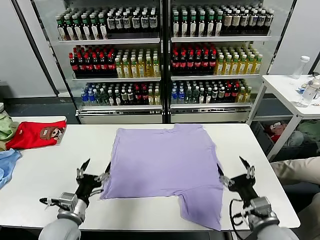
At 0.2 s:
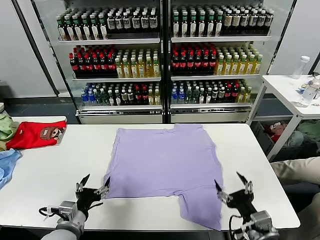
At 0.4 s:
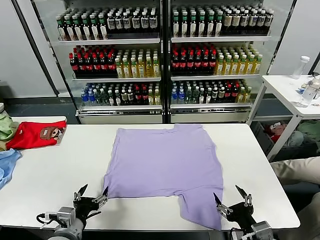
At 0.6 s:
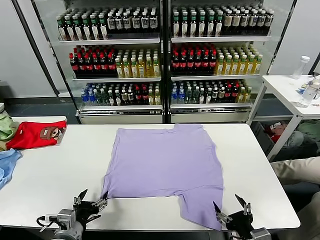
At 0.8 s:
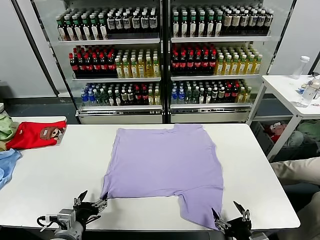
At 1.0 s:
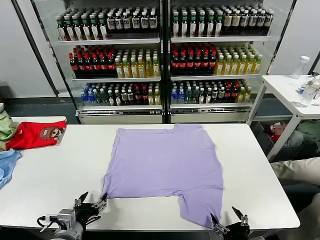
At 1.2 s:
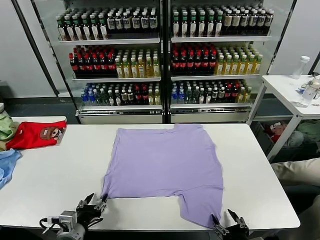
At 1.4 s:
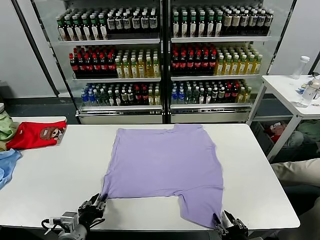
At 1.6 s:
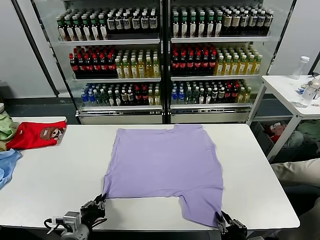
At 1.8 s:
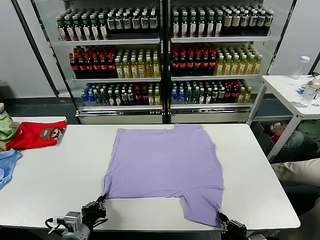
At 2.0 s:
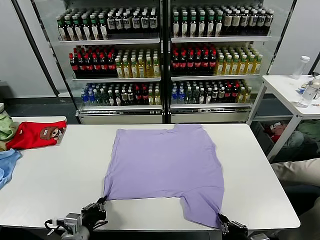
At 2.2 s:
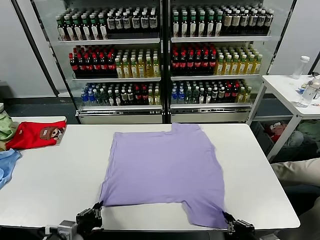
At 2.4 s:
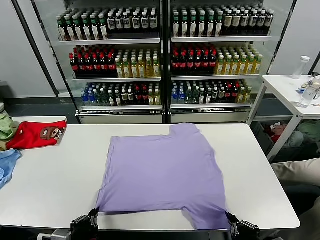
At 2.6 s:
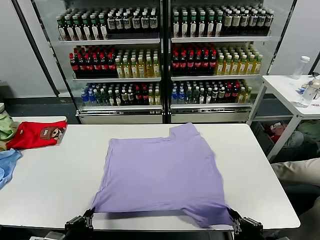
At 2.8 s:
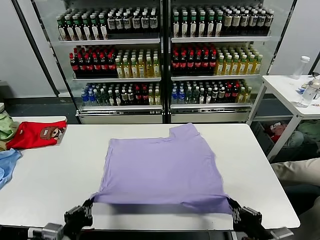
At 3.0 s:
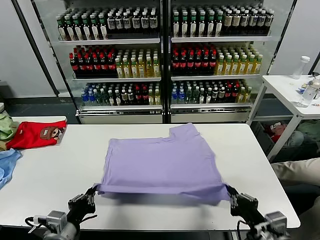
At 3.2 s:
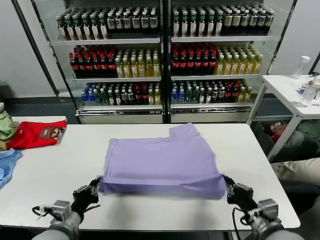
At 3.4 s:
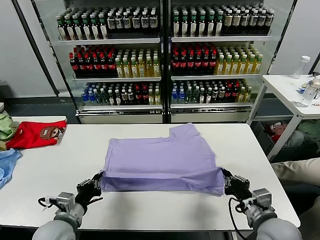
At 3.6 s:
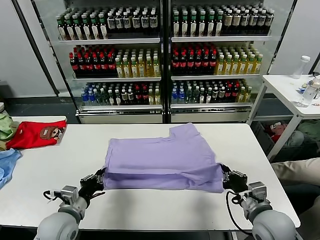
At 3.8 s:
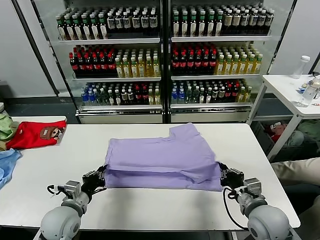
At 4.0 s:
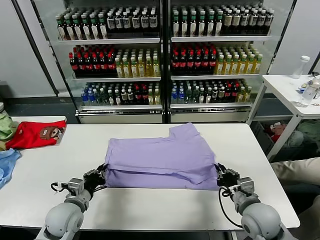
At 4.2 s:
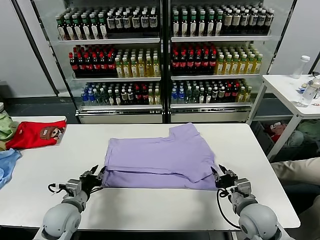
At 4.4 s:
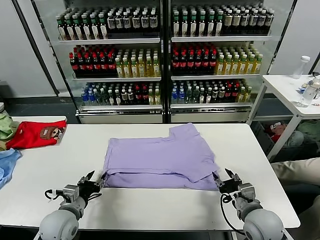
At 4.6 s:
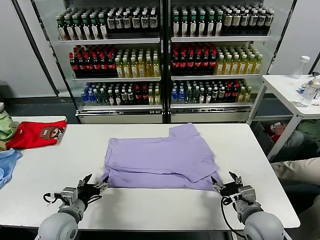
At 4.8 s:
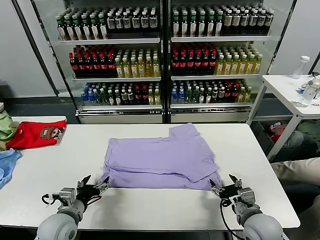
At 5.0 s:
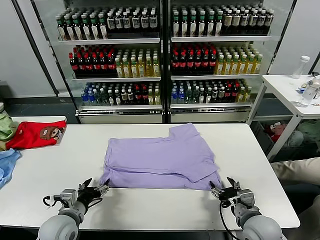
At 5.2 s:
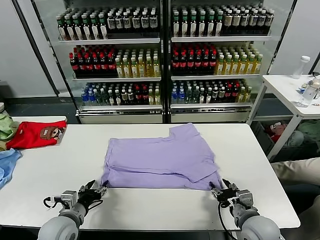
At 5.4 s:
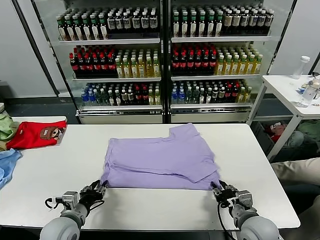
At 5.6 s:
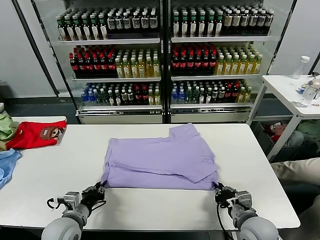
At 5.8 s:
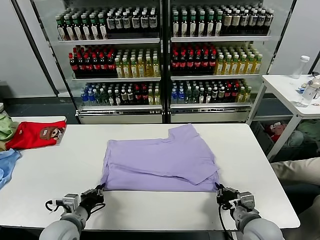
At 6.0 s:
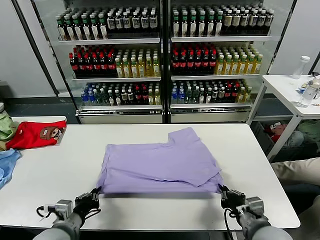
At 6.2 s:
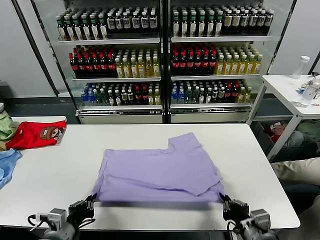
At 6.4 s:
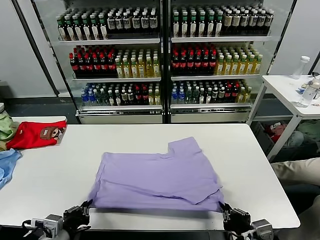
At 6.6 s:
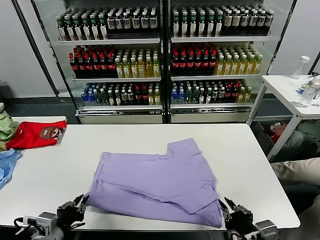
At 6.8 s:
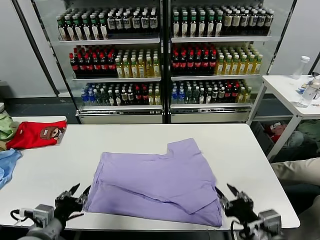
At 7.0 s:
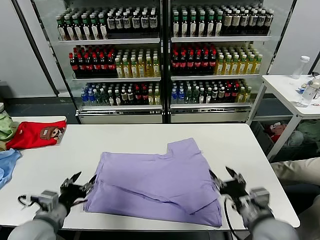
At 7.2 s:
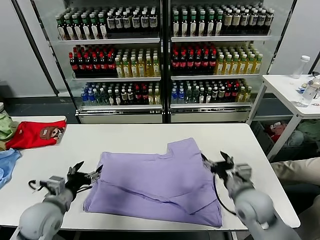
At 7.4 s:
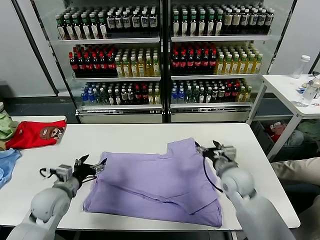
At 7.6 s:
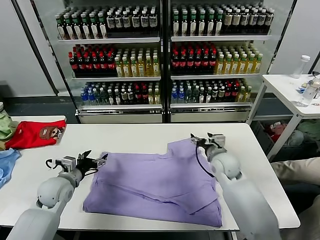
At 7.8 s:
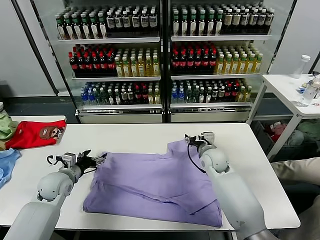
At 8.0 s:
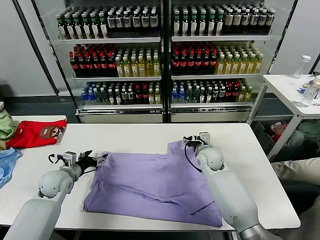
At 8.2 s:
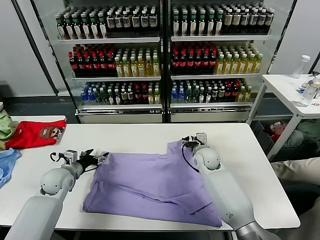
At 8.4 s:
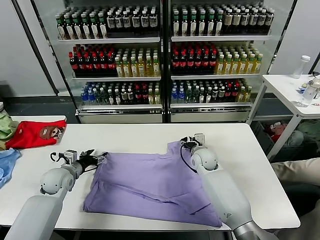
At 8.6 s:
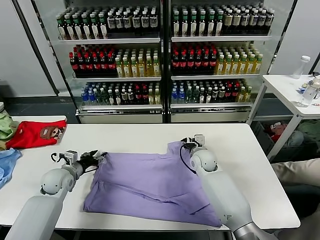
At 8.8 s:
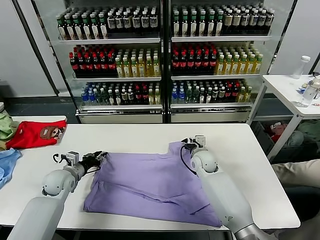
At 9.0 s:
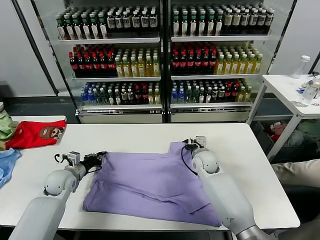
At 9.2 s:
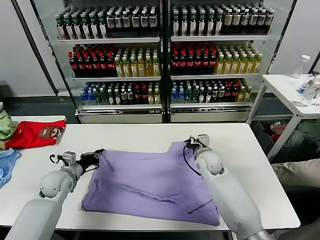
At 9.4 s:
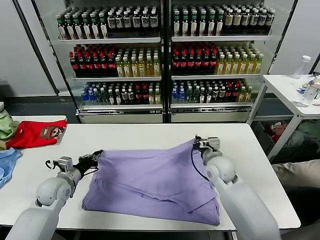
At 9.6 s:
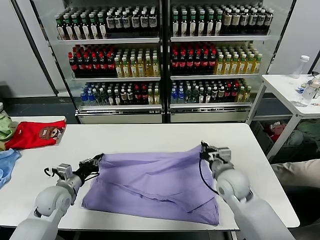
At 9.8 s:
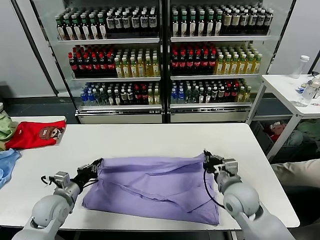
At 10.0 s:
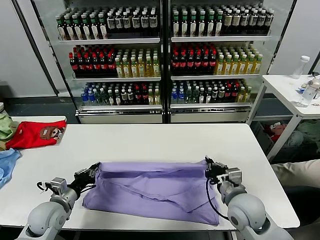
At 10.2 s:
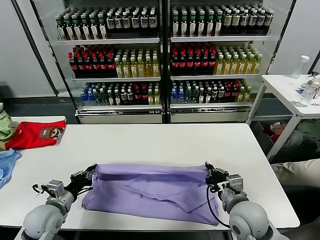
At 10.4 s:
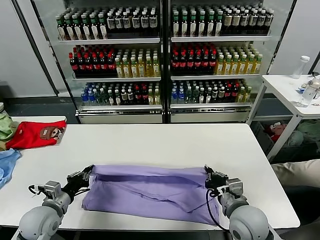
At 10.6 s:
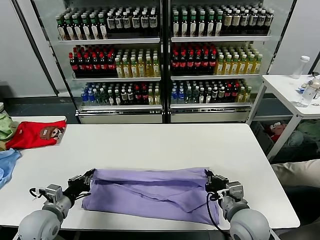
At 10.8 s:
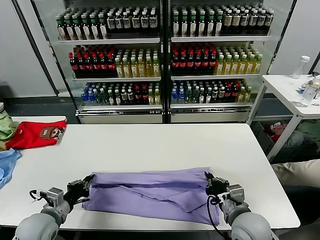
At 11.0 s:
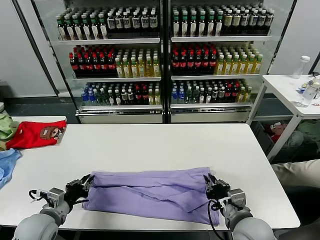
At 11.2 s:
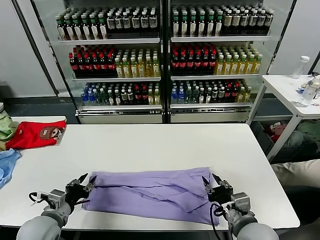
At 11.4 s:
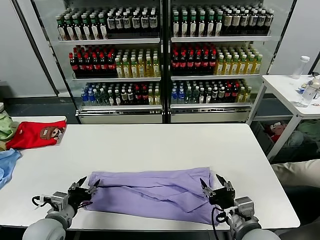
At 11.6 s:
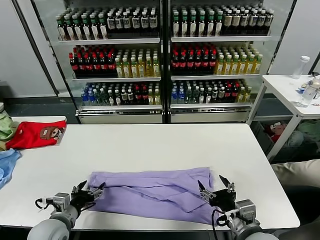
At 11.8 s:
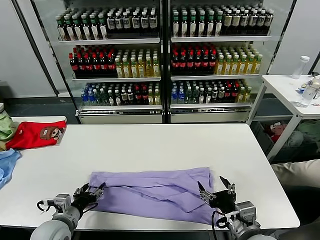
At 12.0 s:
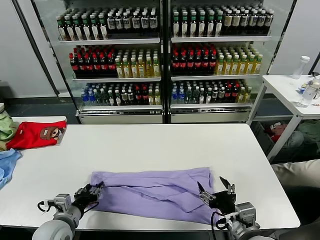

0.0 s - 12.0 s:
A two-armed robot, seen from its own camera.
Task of the whole recording: fold and organize the clothes.
Step, 0.0 s - 1.6 s: use both grippers simultaneously to clamp the lower edge of the clothing fabric.
Step, 2.0 s - 4.4 s: use both grippers to drag the lower edge of the fabric forward and fold it over the upper edge.
Step, 4.8 s - 6.8 s: Drag the clothes downward with both gripper.
Step, 7.0 s - 9.0 s: use both grippers simultaneously to clamp the upper edge of the clothing fabric.
Step, 9.2 s - 11.4 s: use both grippers to drag the upper edge of the fabric backward and fold it over the lower edge.
1.6 s - 3.0 s: The right gripper shifts roughly 10 cm upward and forward. The left gripper travels upward by about 5 cm.
3.0 s - 4.4 s: Both grippers move forward and downward, about 10 cm. The left gripper opens up, while the right gripper opens its fingers.
4.4 s - 6.0 s: The two grippers go about 5 cm backward. The right gripper closes, while the left gripper closes.
6.0 s - 7.6 s: The right gripper travels forward by some 30 cm, and opens its fingers, while the left gripper is displaced forward by approximately 15 cm, and opens its fingers.
7.6 s - 9.0 s: The left gripper travels forward by some 5 cm, and closes; the right gripper moves about 5 cm, and closes.
9.0 s - 10.4 s: The right gripper travels backward by some 25 cm; the left gripper moves backward, some 15 cm.
10.4 s - 12.0 s: The left gripper ends up about 5 cm from where it was, and opens up. The right gripper shifts some 10 cm backward, and opens up.

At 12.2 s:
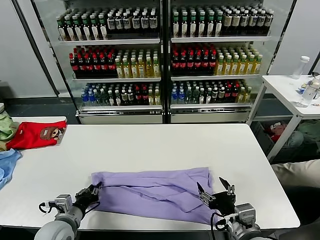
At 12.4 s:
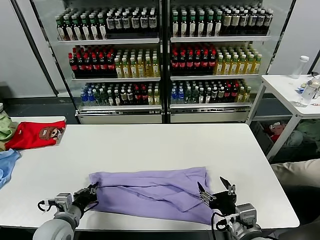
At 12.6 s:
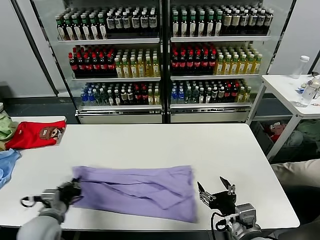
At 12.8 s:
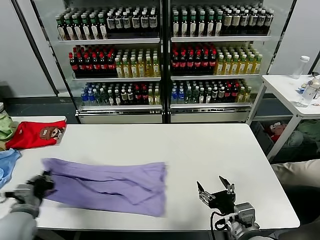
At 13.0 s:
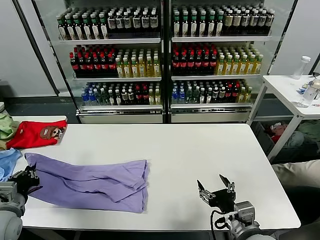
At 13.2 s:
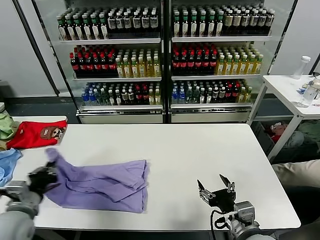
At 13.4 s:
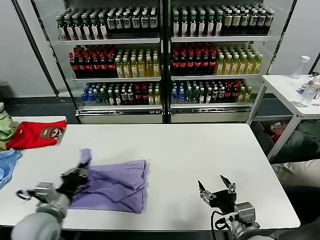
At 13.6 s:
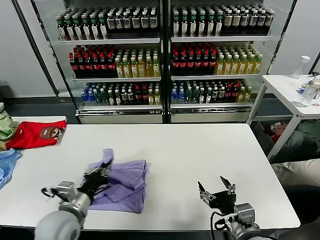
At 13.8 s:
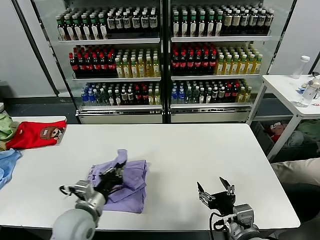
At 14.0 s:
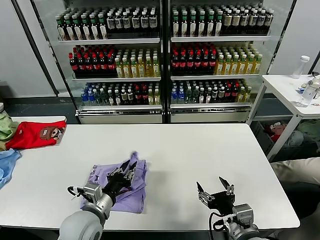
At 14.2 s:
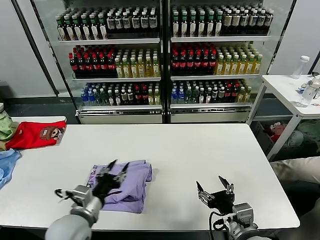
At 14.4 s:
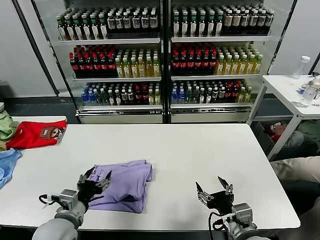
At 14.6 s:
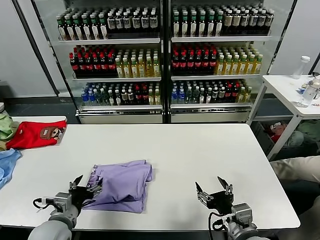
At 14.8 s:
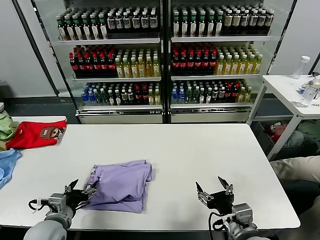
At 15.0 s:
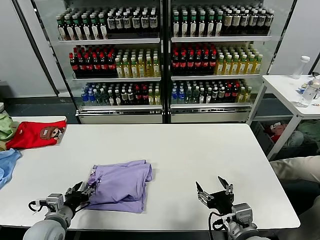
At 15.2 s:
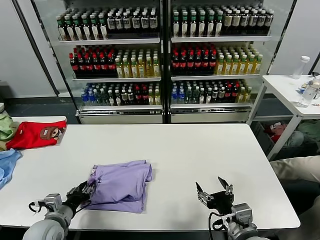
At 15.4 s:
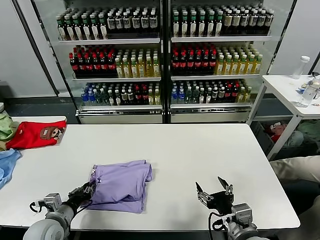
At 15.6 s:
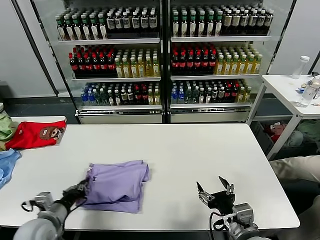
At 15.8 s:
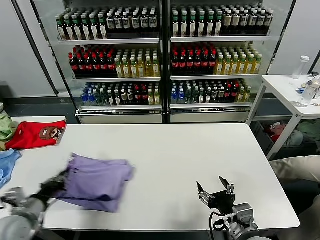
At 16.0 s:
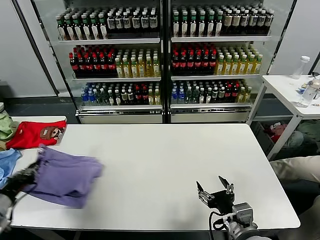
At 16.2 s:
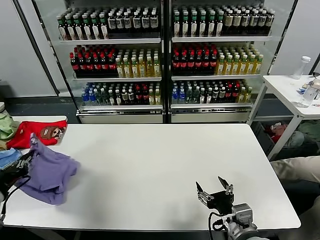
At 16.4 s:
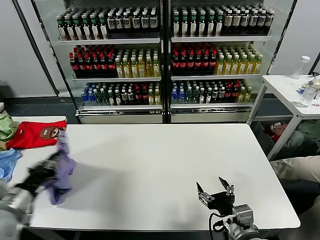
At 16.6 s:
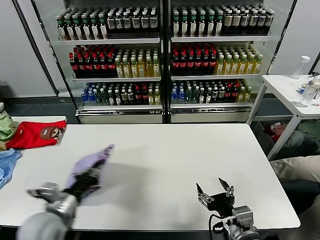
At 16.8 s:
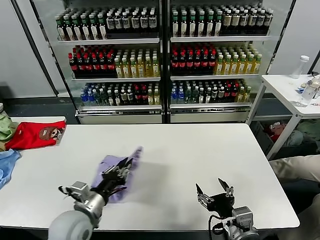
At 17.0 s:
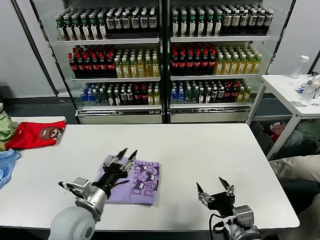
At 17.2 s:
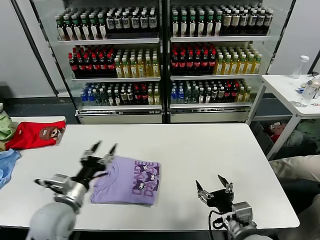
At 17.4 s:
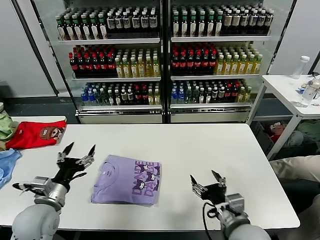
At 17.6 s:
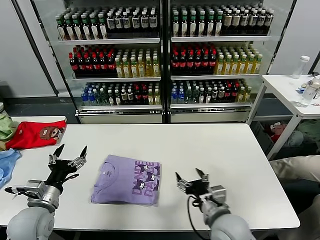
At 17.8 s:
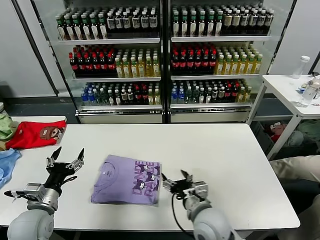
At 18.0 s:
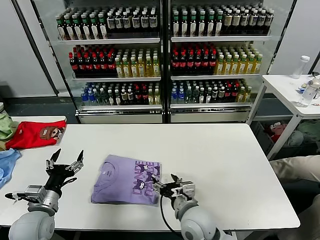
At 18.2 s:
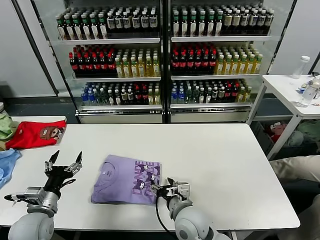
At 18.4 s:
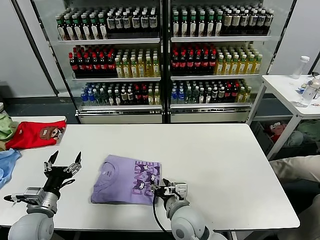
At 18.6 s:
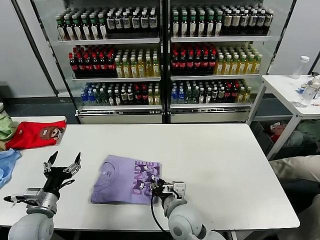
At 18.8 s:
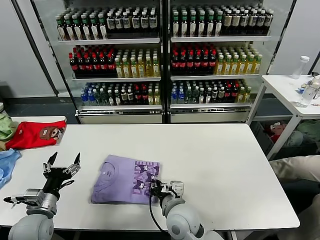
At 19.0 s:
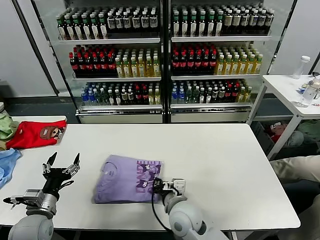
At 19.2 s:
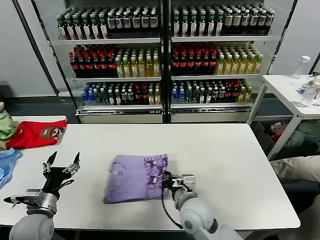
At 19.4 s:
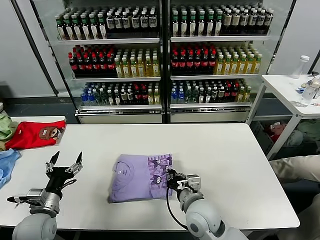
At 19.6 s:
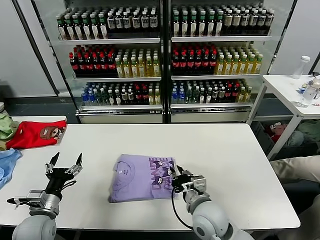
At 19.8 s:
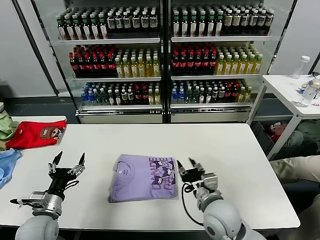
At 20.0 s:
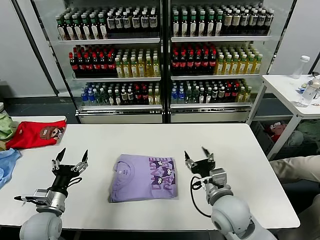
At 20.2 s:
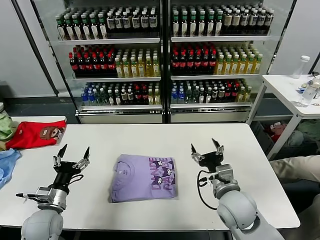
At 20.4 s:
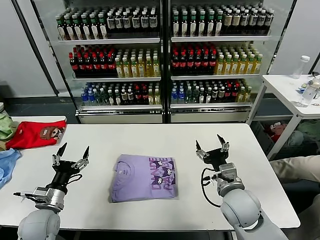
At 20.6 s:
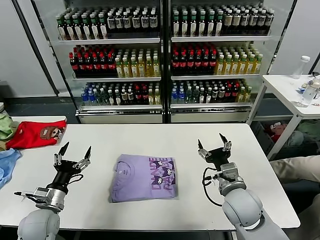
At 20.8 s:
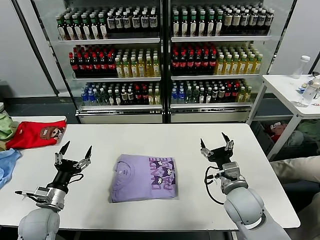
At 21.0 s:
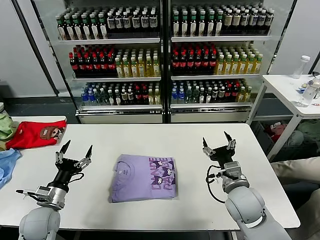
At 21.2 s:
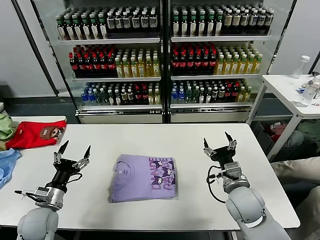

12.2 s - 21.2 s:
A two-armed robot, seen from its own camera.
Task of the whole recording: fold and organize the clothes.
Step, 12.6 s - 14.2 s: use the left gripper to drag the left edge of the fabric to the left and folds it over the right edge.
Step, 14.4 s - 17.0 s: Flip the folded clothes over with left gripper.
Step, 17.2 s - 19.8 s: Drag the clothes to the center of the table.
12.2 s - 13.8 s: The left gripper moves to the right and upward, approximately 10 cm.
13.8 s - 15.2 s: The left gripper heads to the left and downward, covering approximately 15 cm, and opens its fingers.
15.2 s - 16.6 s: The left gripper heads upward, covering approximately 10 cm, goes to the left and returns, roughly 10 cm each way, and closes up.
16.6 s - 18.2 s: The left gripper is displaced downward by roughly 5 cm, moves approximately 10 cm to the right and comes back, and opens. Meanwhile the right gripper moves to the left, forward and downward, about 20 cm.
18.2 s - 19.8 s: The right gripper shifts approximately 5 cm to the right, and closes its fingers.
19.8 s - 21.2 s: The right gripper goes roughly 10 cm to the right, and opens up.
